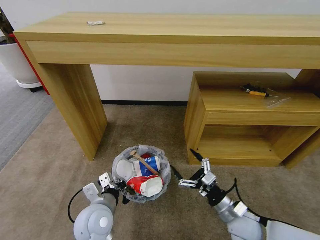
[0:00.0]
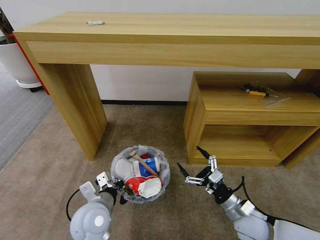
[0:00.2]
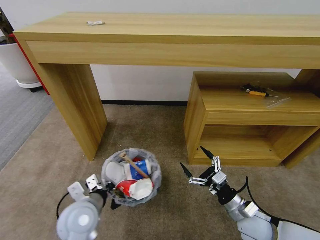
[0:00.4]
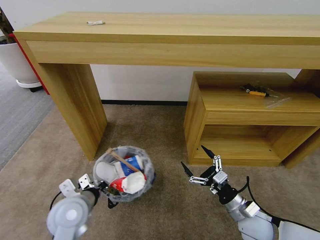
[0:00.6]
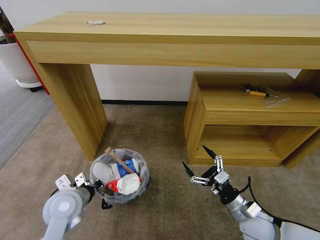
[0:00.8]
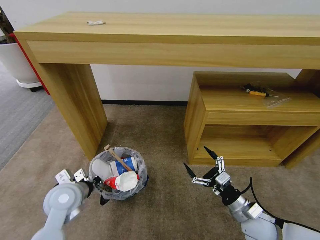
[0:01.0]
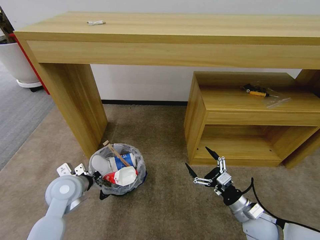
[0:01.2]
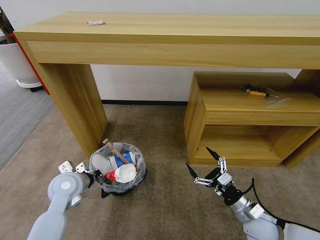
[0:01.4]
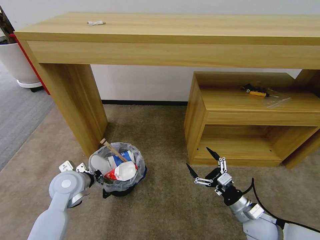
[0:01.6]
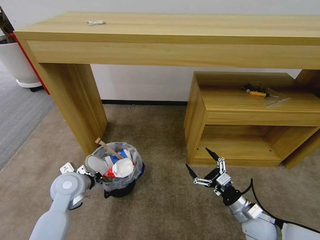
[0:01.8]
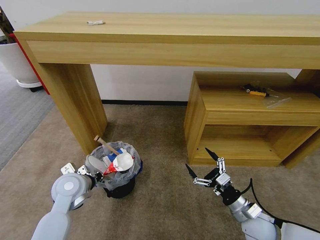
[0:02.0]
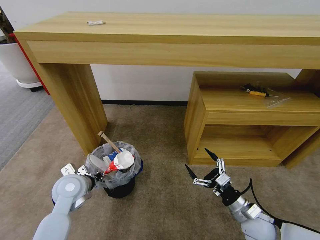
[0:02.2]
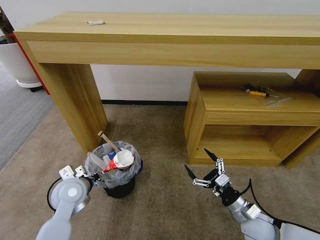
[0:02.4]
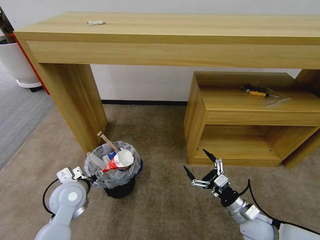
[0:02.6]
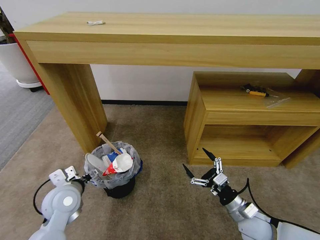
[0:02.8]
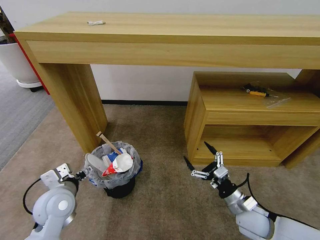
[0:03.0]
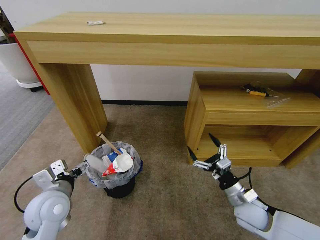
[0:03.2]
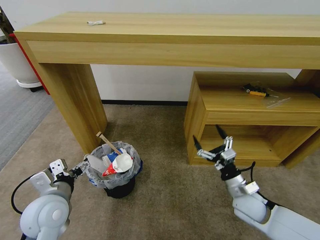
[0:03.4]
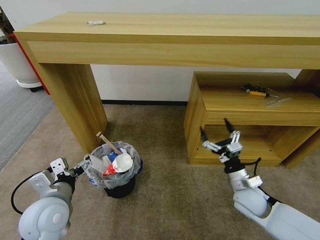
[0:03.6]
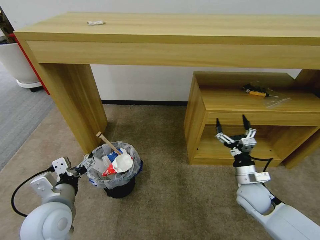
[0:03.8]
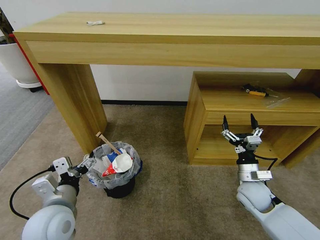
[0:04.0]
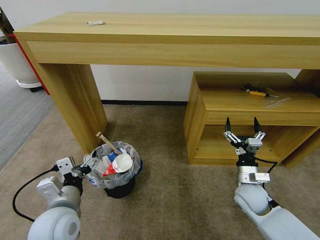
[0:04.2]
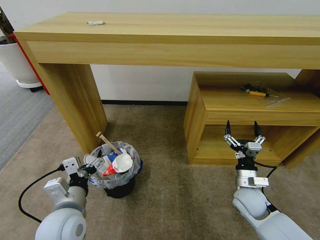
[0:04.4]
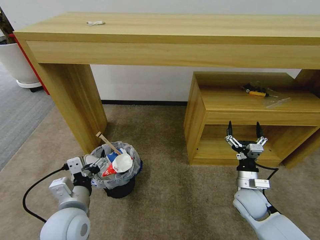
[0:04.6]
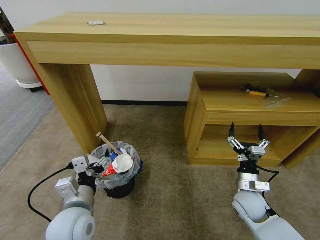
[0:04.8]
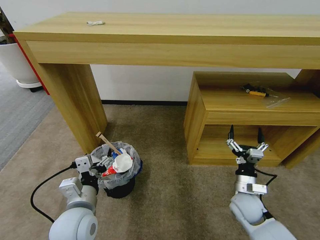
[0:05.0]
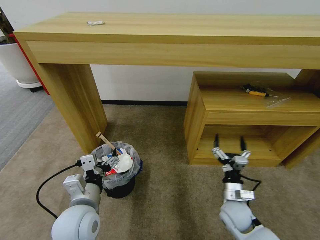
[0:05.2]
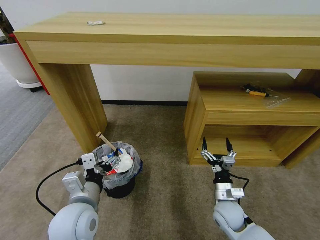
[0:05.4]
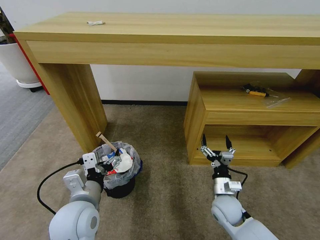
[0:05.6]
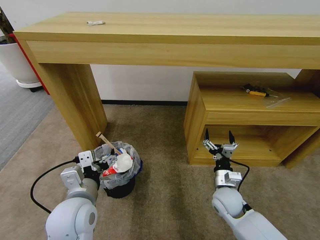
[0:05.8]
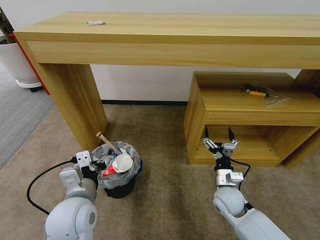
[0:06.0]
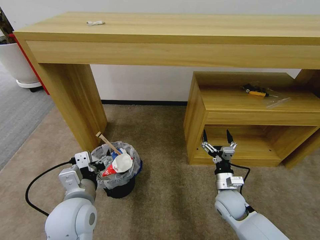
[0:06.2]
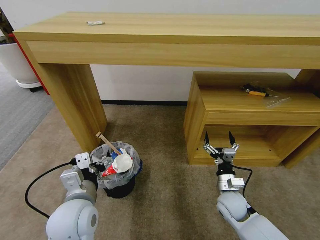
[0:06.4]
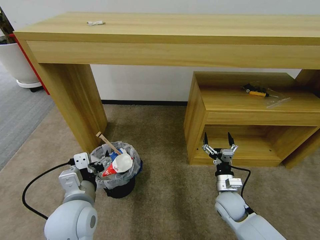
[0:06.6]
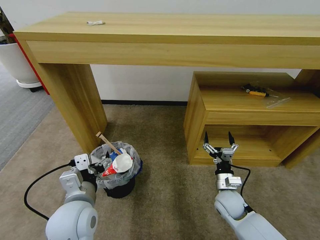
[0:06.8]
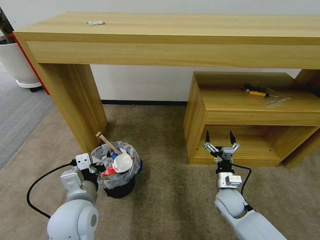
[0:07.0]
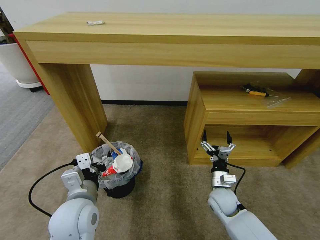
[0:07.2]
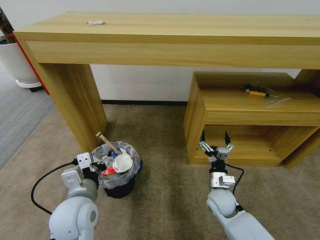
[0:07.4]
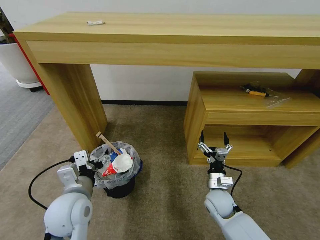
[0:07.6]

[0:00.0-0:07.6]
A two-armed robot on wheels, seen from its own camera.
Task of the whole recording: Pick up the trash bin and place the garbage on the floor into it.
0:00.0 to 0:01.6: The right gripper travels to the right by roughly 5 cm; the left gripper heads to the left and forward, covering some 15 cm.
0:01.6 to 0:03.0: The left gripper heads backward, covering approximately 5 cm, and opens.
0:03.0 to 0:04.6: The left gripper goes approximately 10 cm to the right and backward. The right gripper is displaced forward by about 5 cm.
0:04.6 to 0:06.0: The right gripper shifts about 5 cm to the left.
0:06.0 to 0:07.6: There are only small adjustments of the grippers.

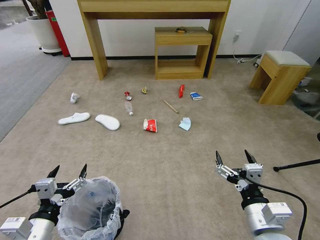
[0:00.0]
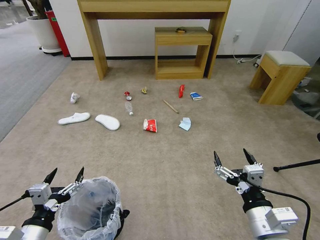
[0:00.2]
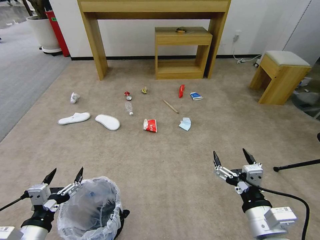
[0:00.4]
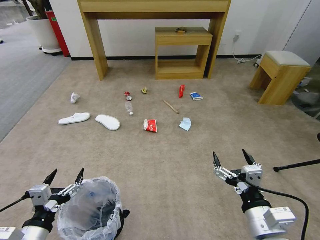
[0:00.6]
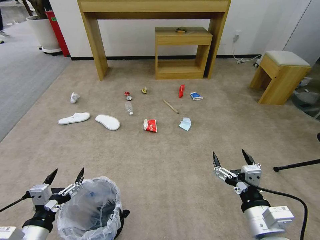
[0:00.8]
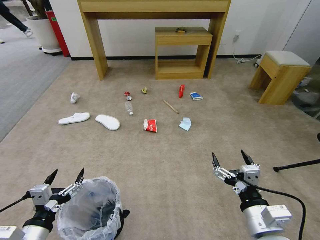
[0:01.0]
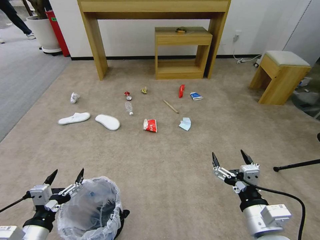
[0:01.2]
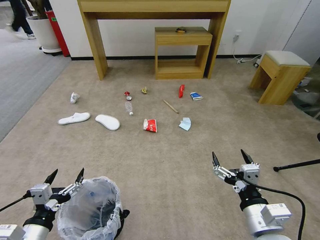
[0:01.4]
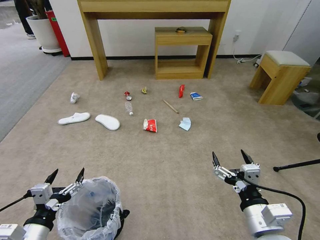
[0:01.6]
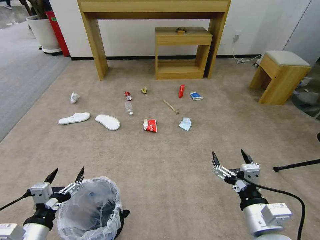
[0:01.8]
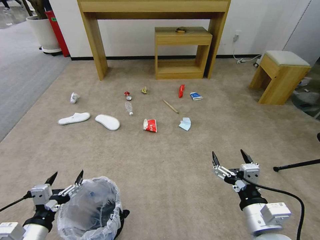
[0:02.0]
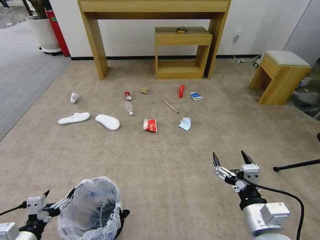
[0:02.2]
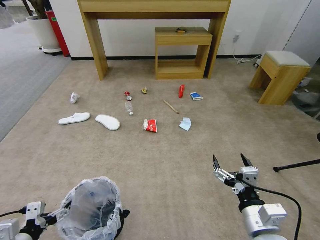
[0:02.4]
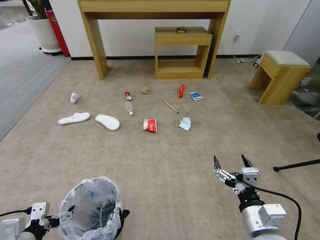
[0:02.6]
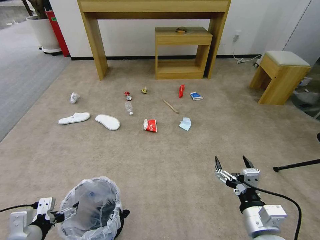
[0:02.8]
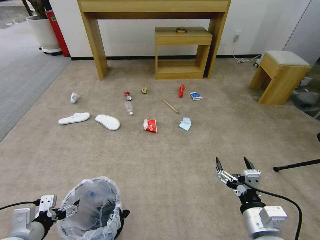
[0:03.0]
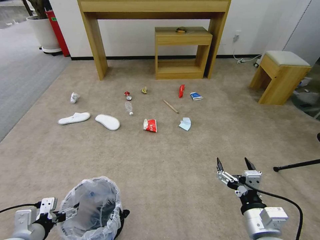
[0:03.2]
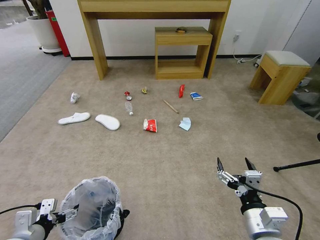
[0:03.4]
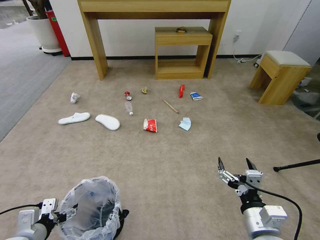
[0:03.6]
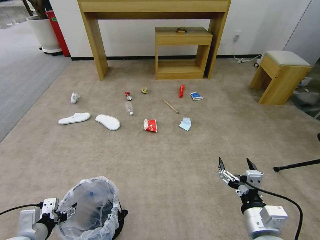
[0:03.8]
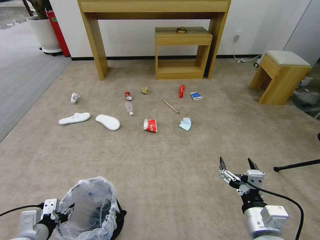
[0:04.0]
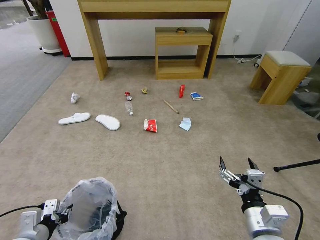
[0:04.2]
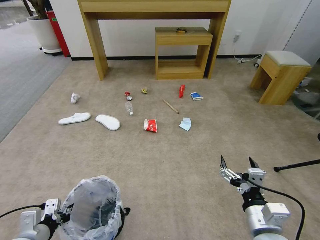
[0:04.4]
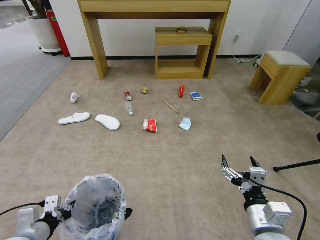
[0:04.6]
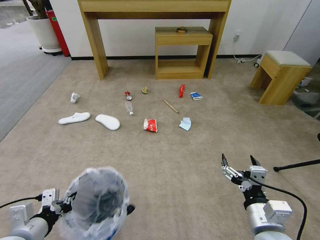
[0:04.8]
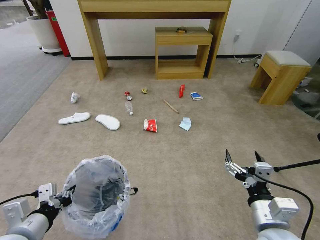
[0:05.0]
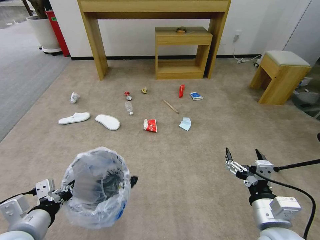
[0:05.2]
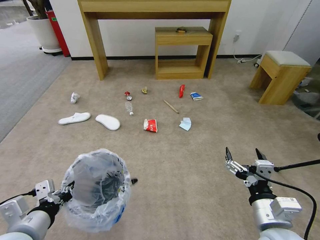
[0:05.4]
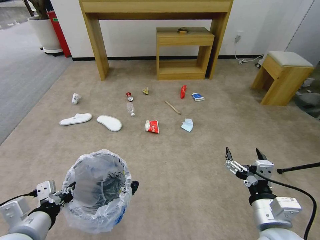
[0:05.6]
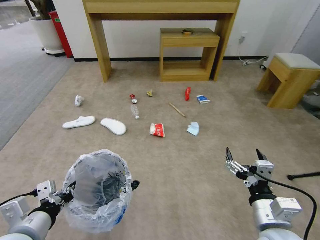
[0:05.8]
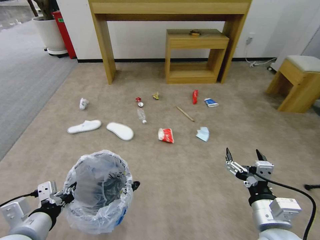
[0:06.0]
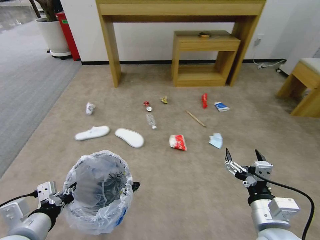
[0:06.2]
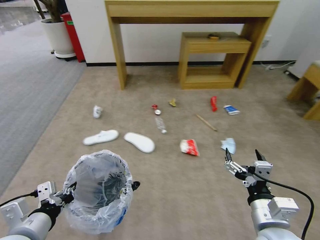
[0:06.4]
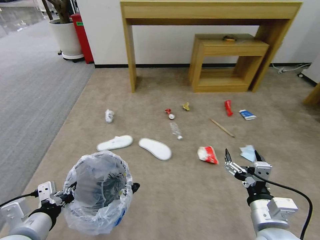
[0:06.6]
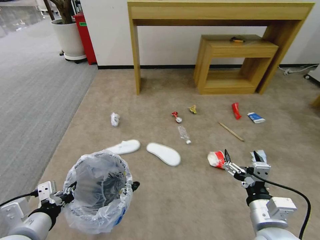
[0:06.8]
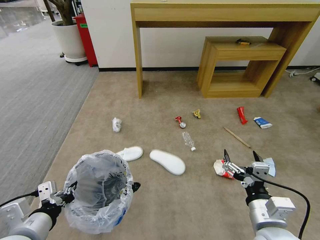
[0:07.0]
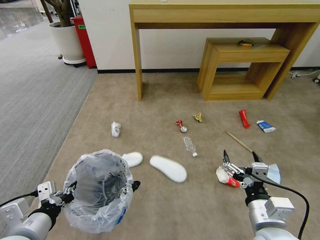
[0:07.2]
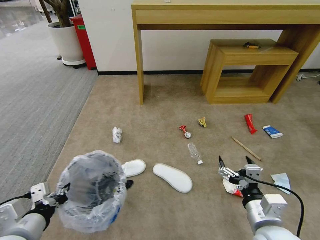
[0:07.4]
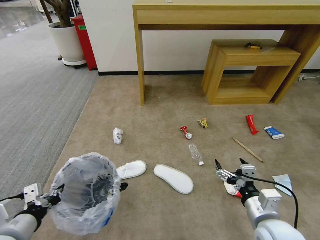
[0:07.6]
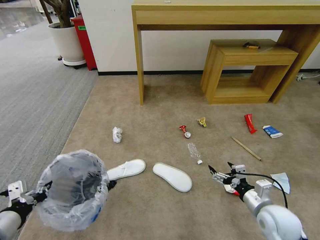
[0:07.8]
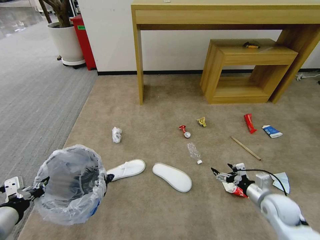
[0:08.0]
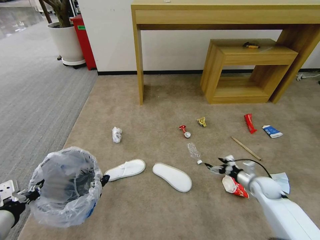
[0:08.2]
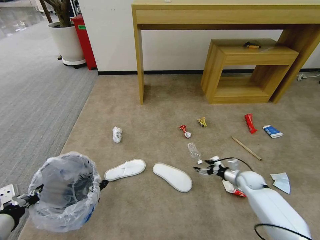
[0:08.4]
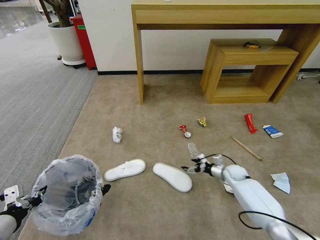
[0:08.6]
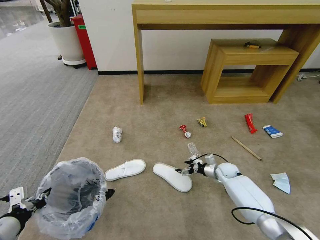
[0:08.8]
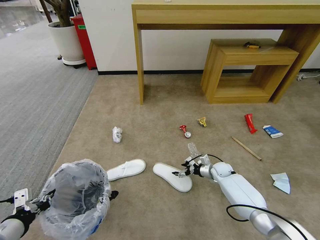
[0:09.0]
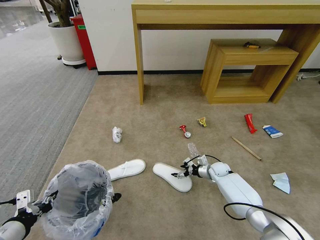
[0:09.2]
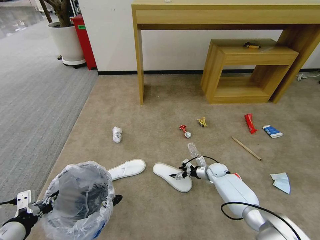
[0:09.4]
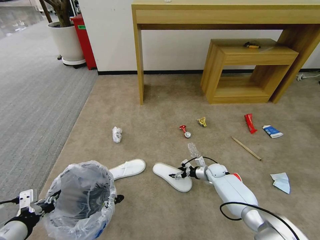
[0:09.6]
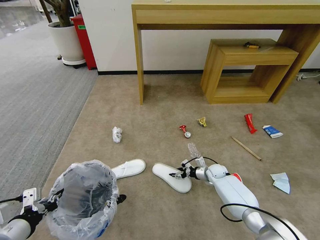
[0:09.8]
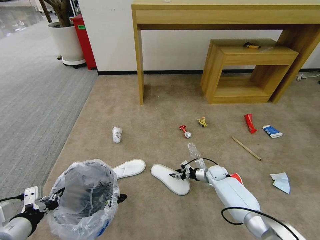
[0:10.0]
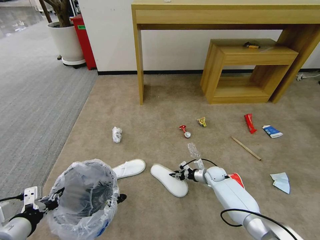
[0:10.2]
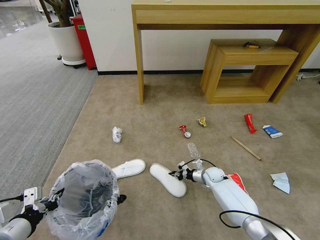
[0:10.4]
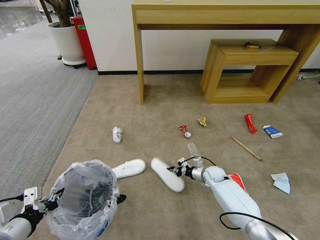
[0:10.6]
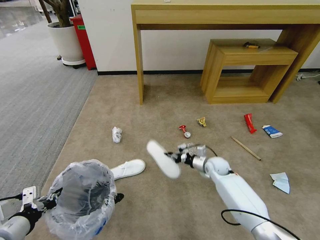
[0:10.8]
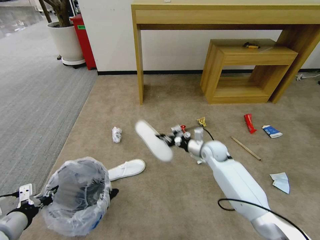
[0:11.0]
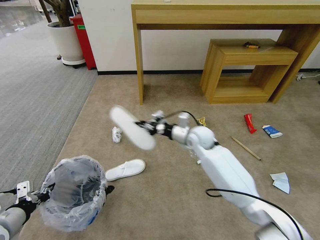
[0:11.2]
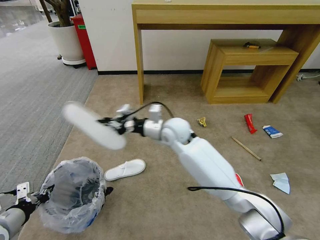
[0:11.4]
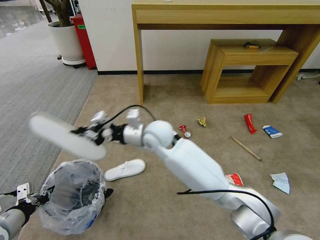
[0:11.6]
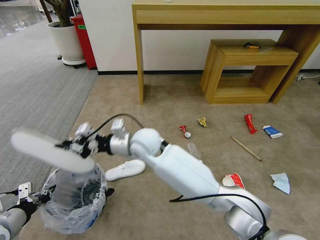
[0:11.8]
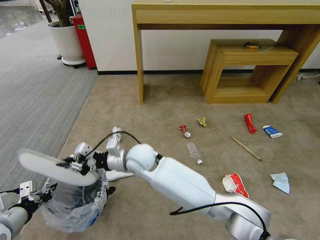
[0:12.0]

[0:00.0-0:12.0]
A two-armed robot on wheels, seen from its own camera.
Task of the whole recording: Pick up the trash bin and place the garbage on the floor into it.
0:03.0 to 0:04.4: The left gripper closes its fingers.
0:04.4 to 0:06.0: The left gripper moves upward and to the right, about 10 cm.
0:06.0 to 0:07.6: The right gripper shifts by some 5 cm.
0:07.6 to 0:09.0: The right gripper moves forward and downward, some 35 cm.
0:09.0 to 0:10.4: The right gripper closes up.
0:10.4 to 0:12.0: The left gripper travels to the left by roughly 5 cm, while the right gripper shifts some 40 cm to the left and upward.

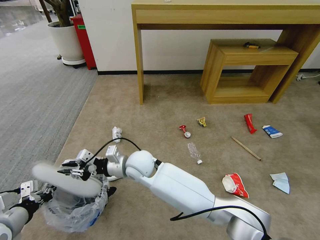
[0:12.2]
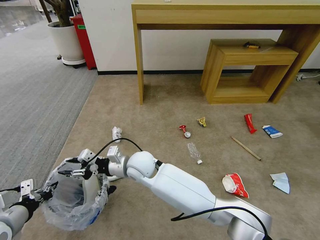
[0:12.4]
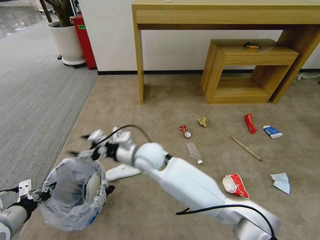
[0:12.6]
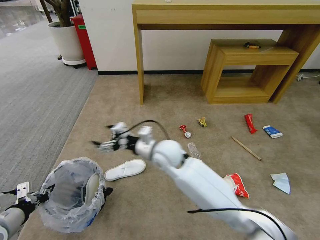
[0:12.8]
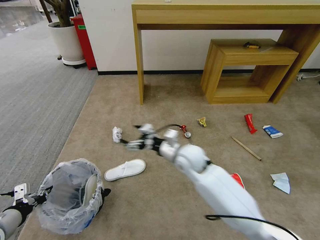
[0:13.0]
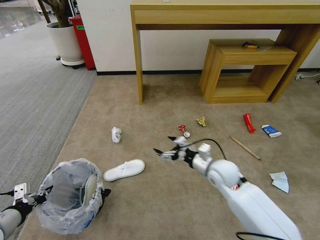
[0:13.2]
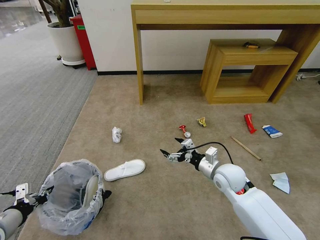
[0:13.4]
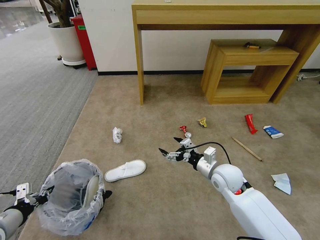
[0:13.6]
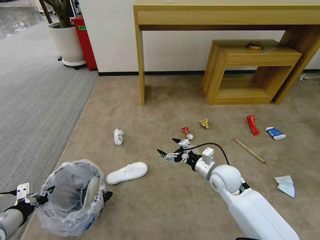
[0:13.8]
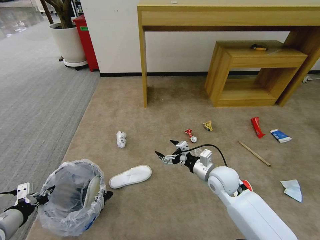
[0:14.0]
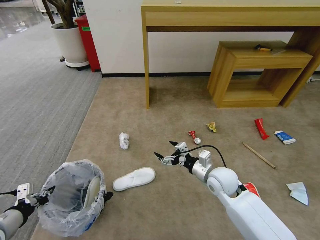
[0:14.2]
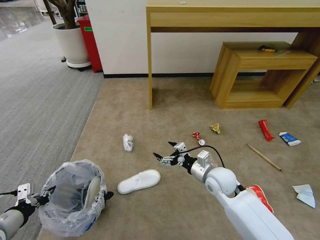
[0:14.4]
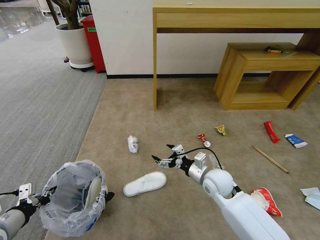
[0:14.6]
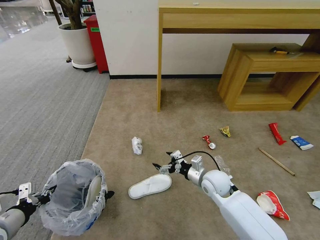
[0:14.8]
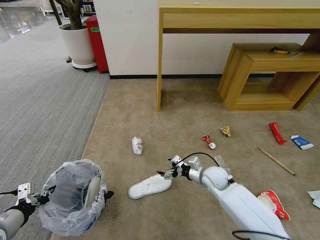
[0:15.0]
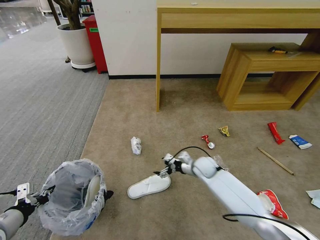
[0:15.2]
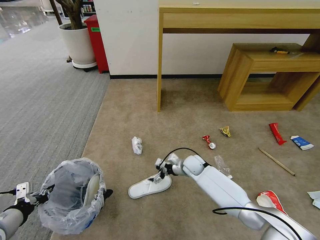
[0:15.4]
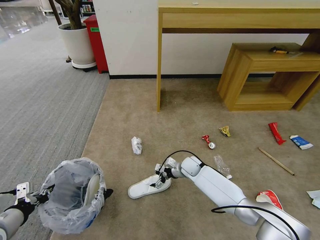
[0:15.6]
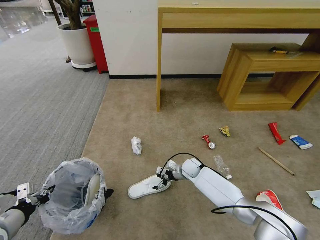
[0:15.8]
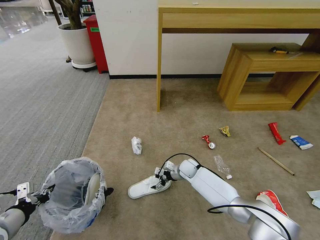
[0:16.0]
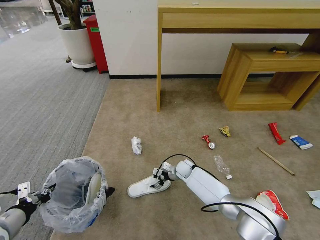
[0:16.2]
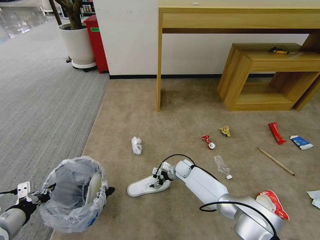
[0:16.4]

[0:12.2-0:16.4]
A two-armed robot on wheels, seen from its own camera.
Task of the whole recording: Pick up the trash bin and place the garbage on the floor into it.
0:12.2 to 0:13.6: The right gripper shifts approximately 30 cm to the right, and opens its fingers.
0:13.6 to 0:15.0: The right gripper shifts some 10 cm downward.
0:15.0 to 0:16.4: The right gripper goes some 15 cm downward, to the left and forward.
